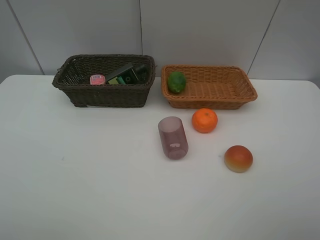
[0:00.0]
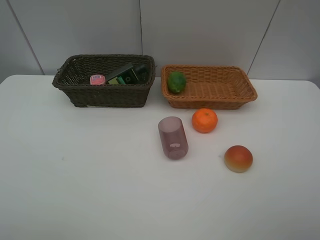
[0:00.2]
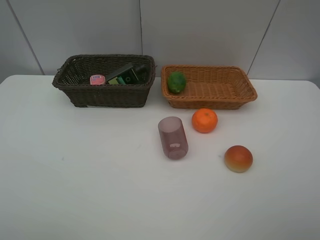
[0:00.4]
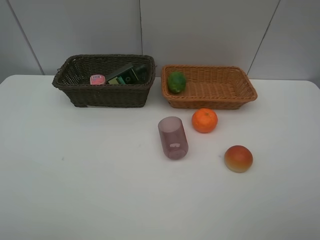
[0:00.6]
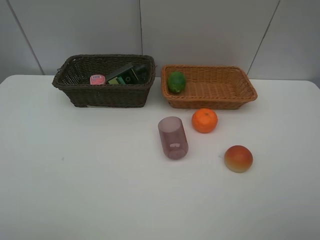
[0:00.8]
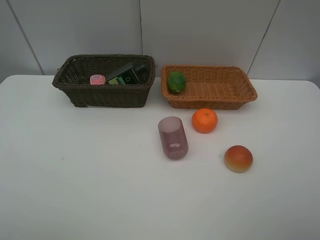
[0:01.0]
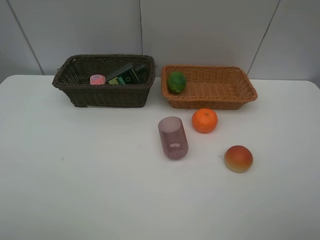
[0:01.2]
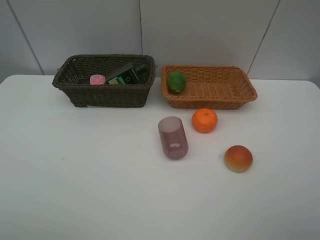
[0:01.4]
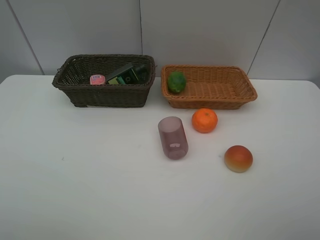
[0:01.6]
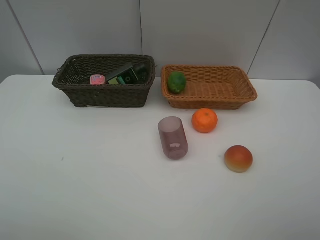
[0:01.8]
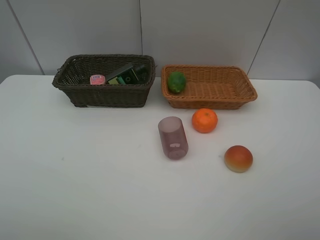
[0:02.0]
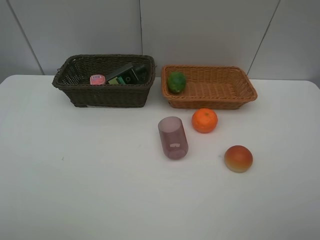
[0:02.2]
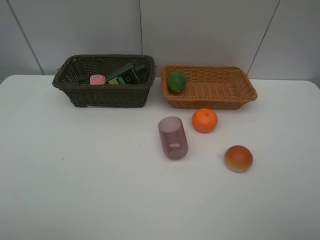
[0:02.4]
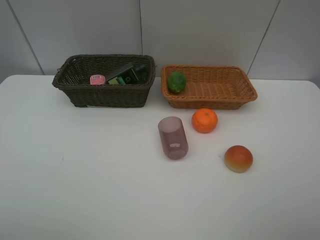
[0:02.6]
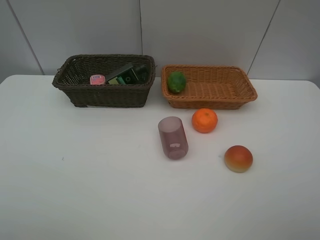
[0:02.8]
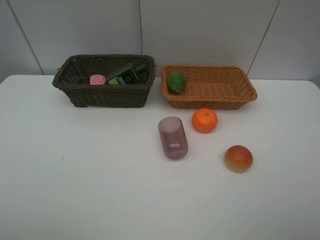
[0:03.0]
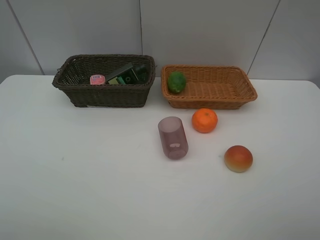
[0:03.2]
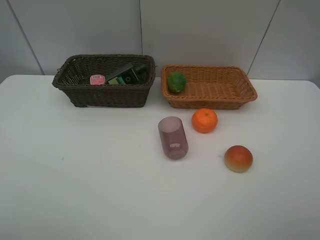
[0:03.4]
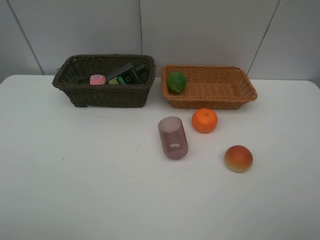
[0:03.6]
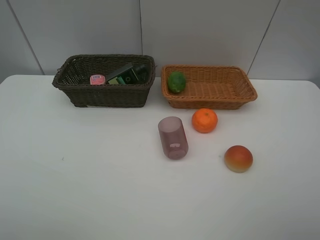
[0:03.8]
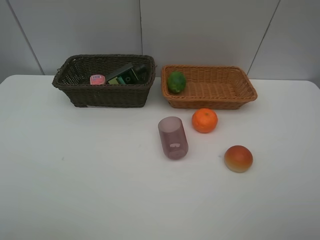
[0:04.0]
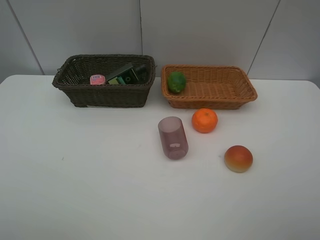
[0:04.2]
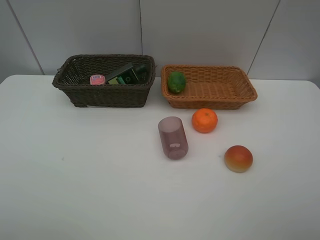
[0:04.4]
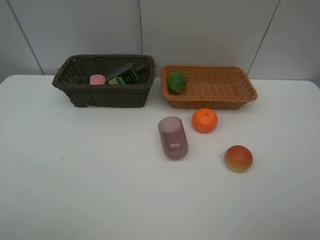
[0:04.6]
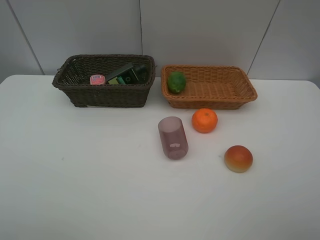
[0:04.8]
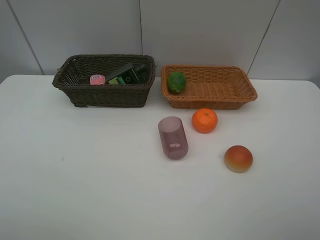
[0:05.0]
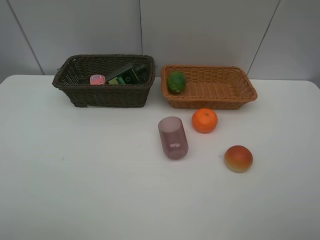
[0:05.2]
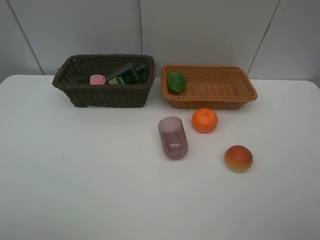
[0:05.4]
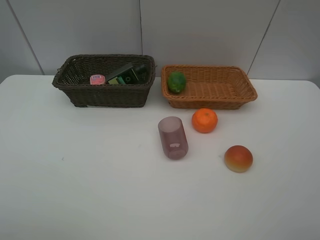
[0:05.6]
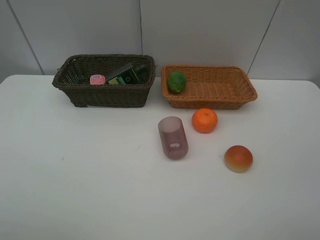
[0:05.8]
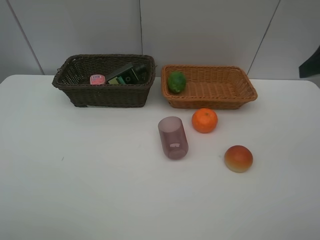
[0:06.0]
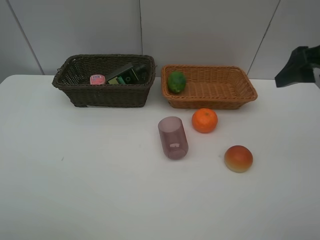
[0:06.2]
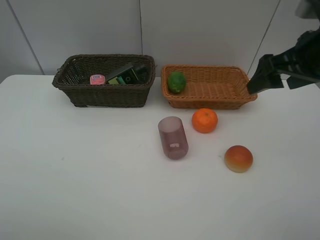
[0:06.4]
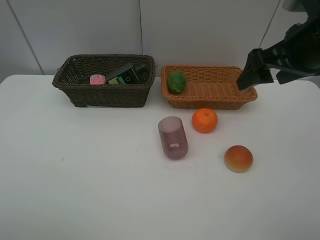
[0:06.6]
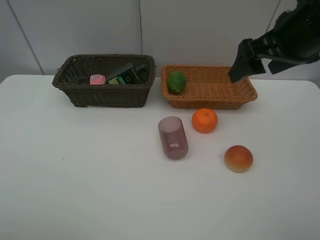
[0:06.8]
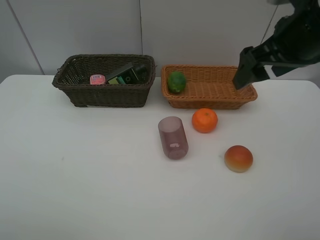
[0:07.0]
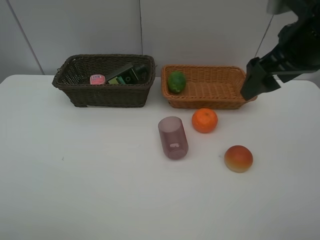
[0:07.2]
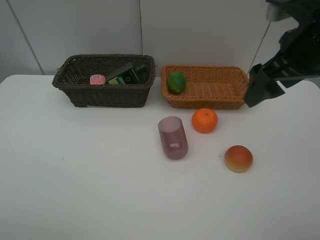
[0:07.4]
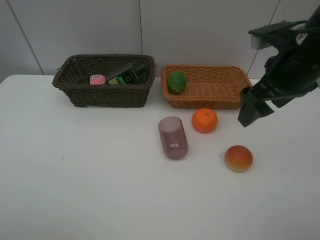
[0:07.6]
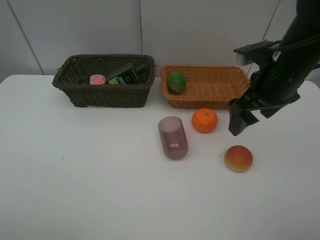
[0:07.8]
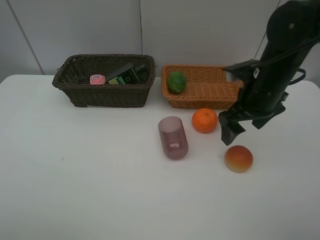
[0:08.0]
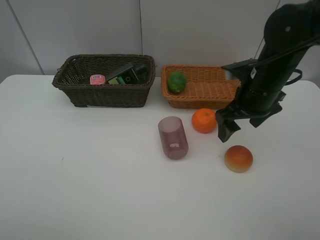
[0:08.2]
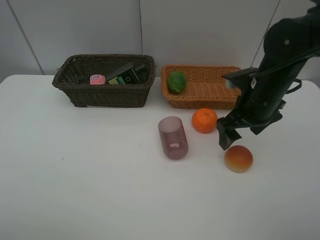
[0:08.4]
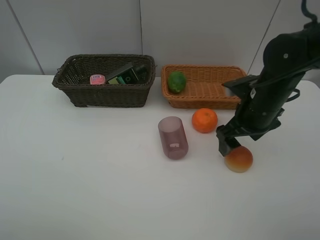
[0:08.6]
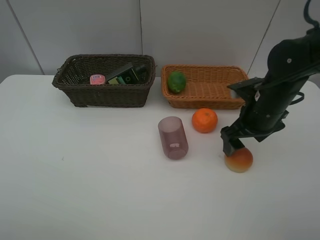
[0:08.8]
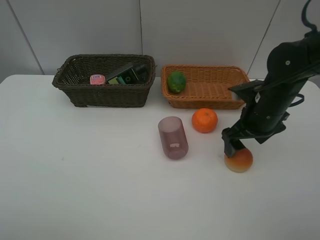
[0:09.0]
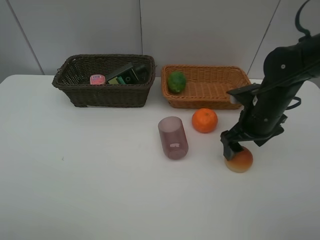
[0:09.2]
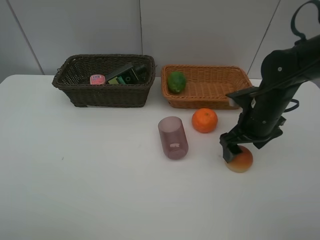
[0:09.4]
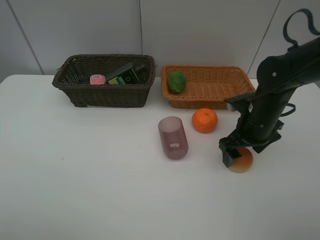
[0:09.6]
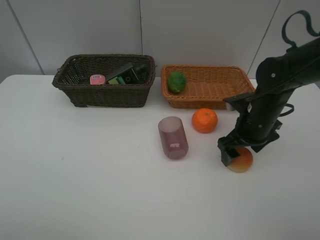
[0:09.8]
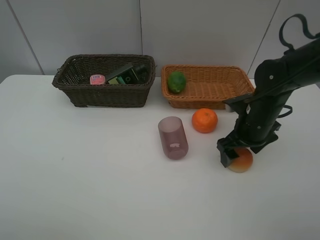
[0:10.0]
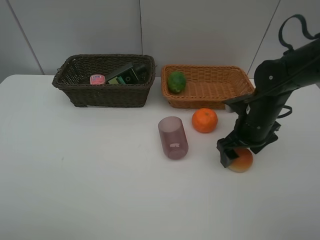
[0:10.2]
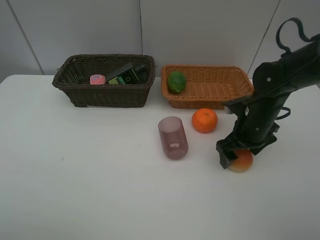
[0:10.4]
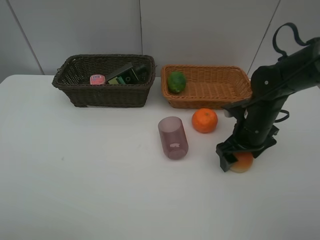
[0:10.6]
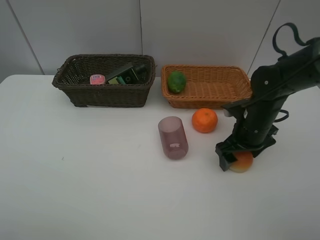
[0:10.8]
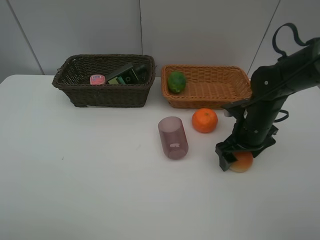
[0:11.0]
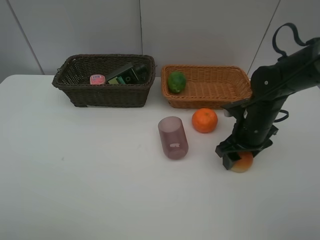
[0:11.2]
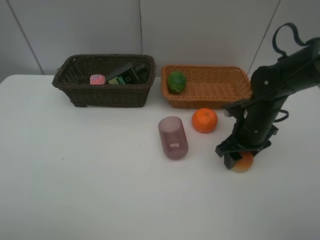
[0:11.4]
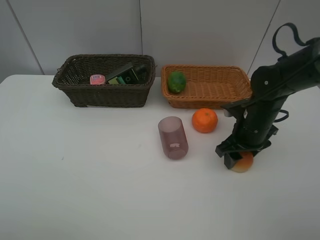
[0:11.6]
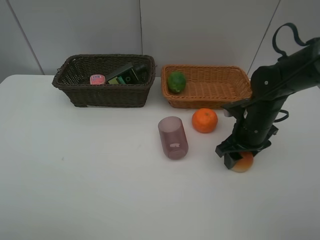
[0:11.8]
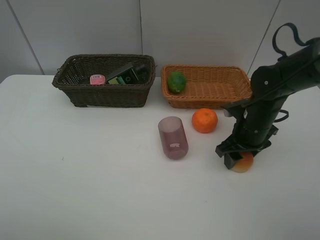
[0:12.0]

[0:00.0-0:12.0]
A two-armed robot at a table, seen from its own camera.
Task of the whole recording: place multiple objects separately in different baskets.
0:01.6 to 0:04.4: Neither gripper changes place.
0:06.0 to 0:07.6: The right gripper heads to the left and downward, covering about 10 cm.
0:07.6 to 0:09.0: The right gripper heads downward, covering roughly 10 cm.
0:09.0 to 0:10.4: The grippers make only small movements.
0:10.4 to 0:12.0: The right gripper closes.

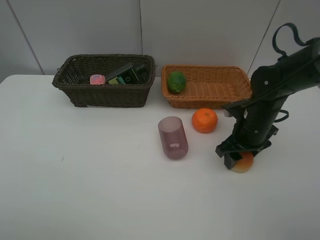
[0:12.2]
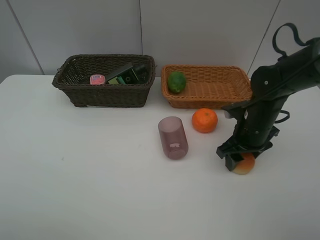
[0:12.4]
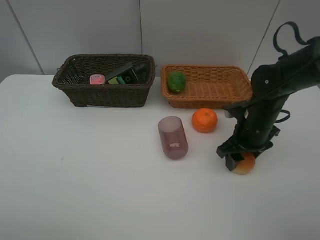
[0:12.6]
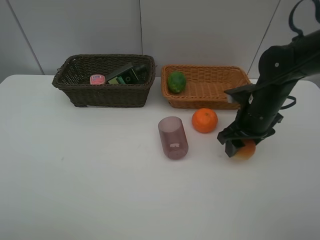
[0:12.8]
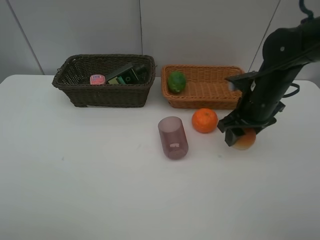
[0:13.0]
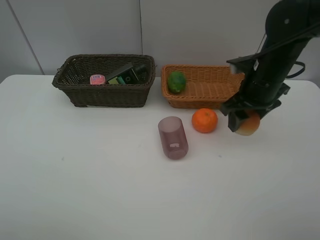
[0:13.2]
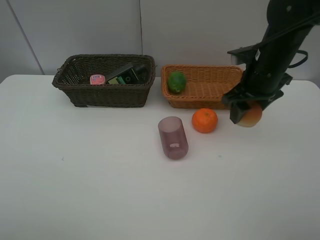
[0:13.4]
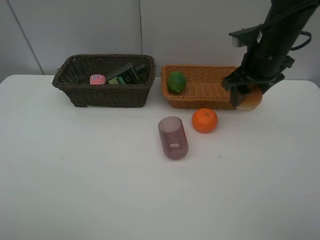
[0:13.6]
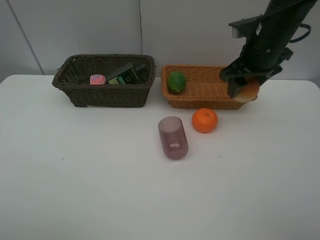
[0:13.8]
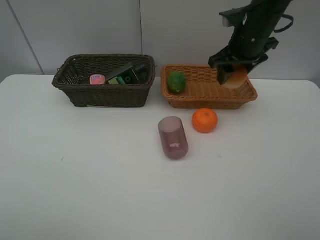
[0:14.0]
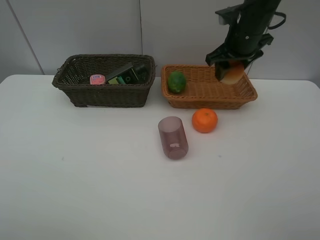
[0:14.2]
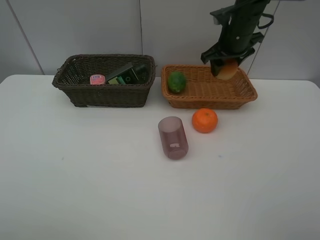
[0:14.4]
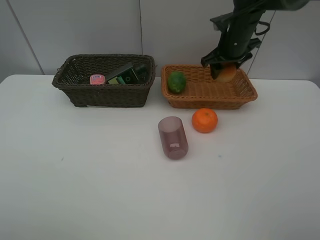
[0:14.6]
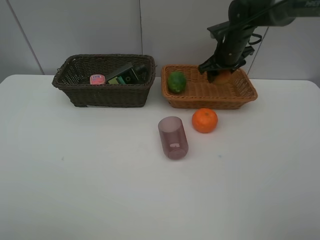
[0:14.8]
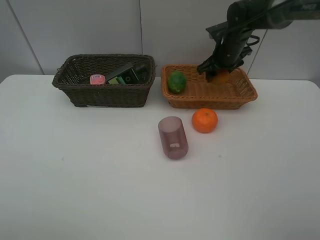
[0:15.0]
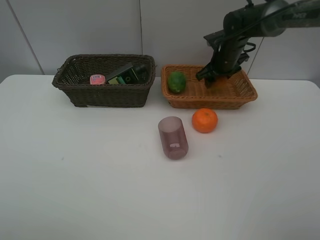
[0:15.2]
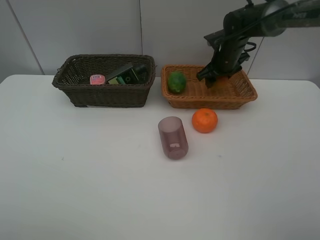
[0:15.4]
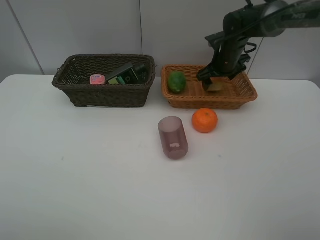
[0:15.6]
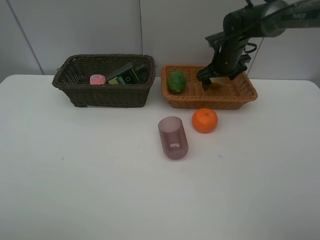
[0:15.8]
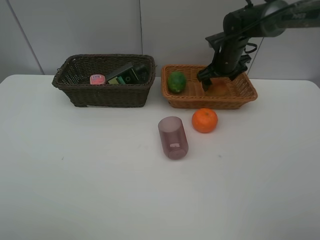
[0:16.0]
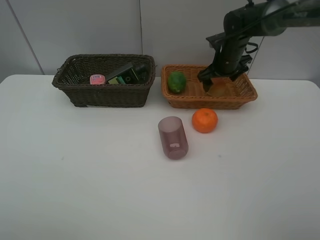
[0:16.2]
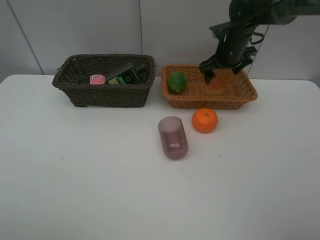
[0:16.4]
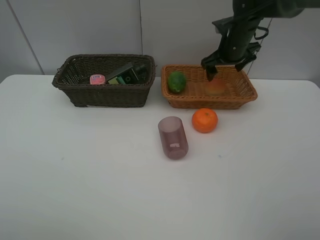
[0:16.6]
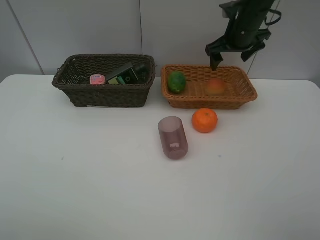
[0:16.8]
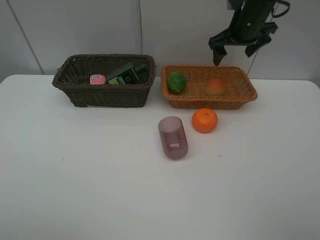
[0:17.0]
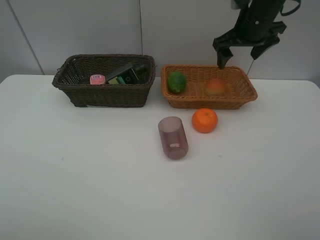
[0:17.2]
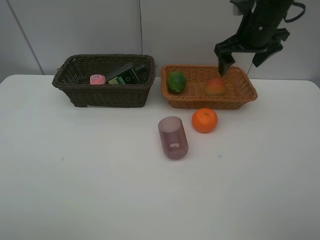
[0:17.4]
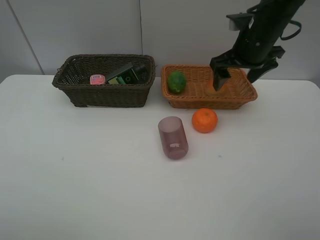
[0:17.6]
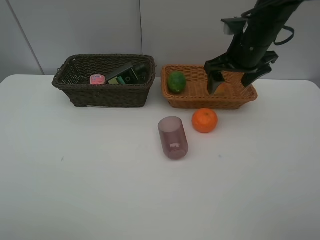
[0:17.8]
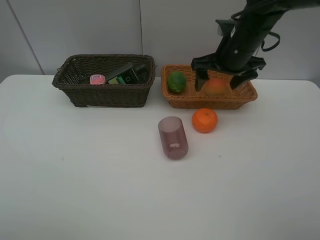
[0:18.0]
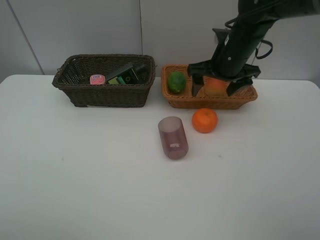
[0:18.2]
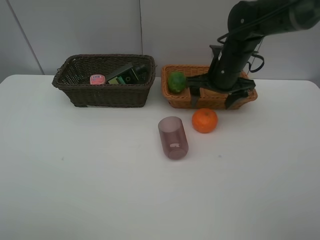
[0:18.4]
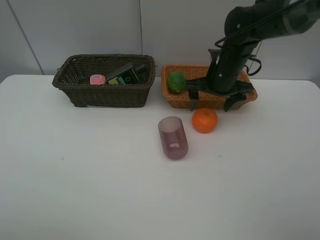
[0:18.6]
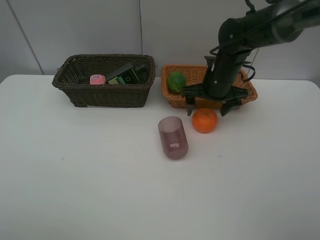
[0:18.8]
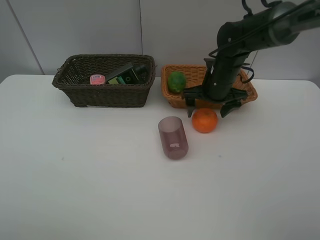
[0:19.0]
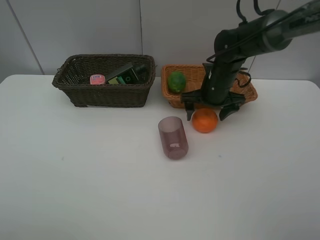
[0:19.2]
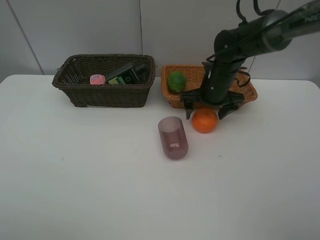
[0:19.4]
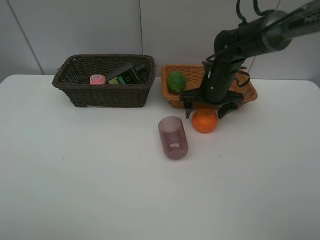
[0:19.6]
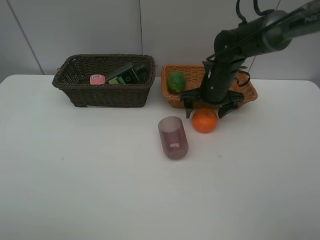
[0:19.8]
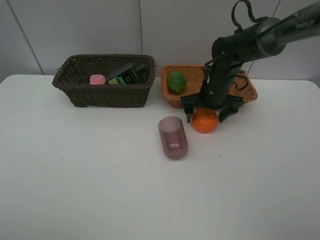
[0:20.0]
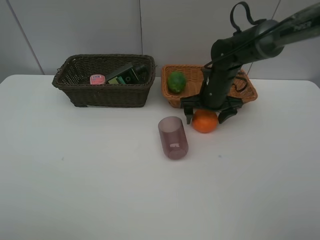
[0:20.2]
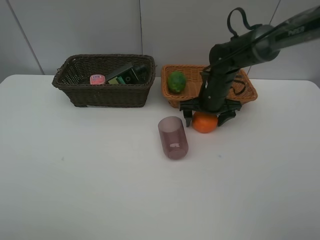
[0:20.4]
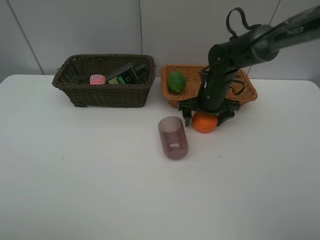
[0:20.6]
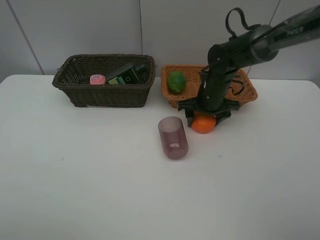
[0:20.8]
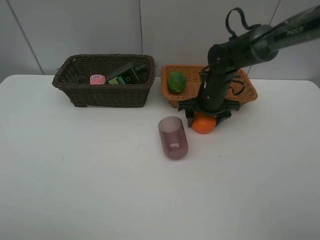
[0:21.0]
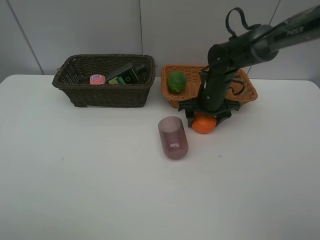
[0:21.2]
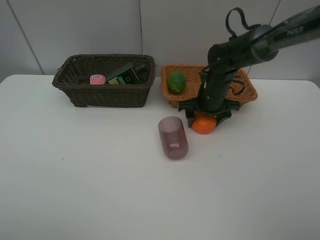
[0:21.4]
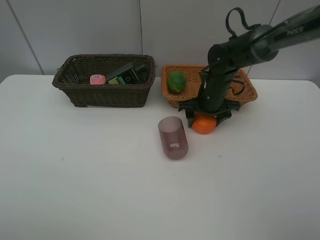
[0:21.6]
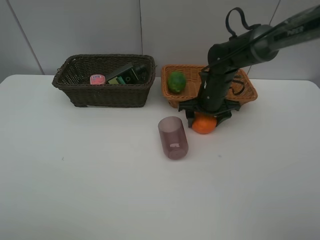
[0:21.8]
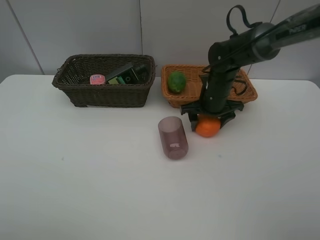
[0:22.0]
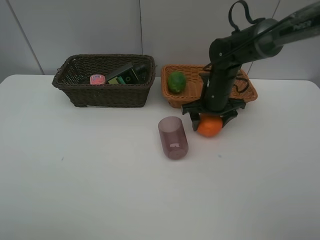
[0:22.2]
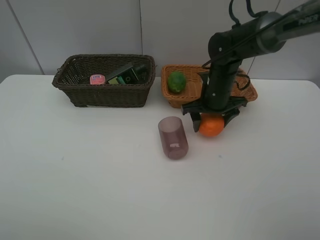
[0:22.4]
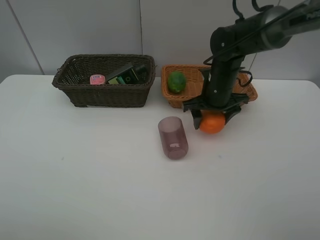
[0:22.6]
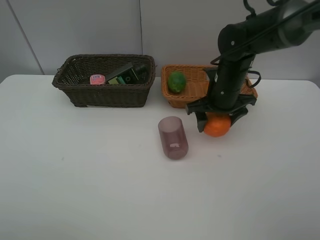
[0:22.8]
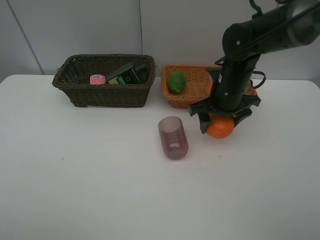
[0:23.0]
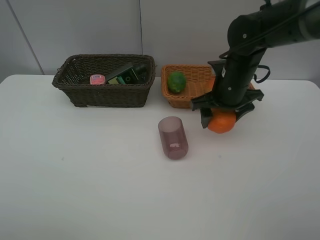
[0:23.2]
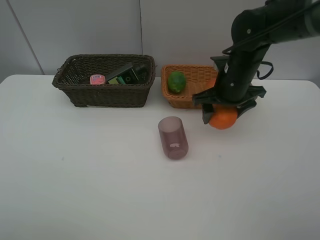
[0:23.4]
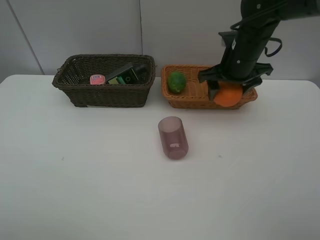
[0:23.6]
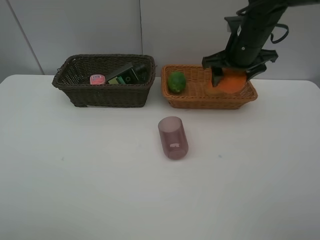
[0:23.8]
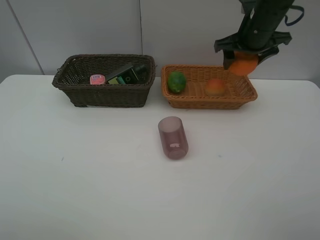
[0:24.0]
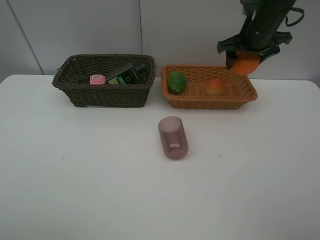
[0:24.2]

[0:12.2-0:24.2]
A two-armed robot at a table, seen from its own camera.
Task of the whole recording: place multiple objects separately in different baskets.
0:12.2 to 0:13.8: The right gripper heads upward and forward, covering some 15 cm.
0:13.8 to 0:15.2: The right gripper moves forward and downward, roughly 15 cm.
0:15.2 to 0:16.6: The right gripper changes place by approximately 5 cm, and opens up.
0:16.6 to 0:18.2: The right gripper heads backward, covering about 10 cm.
0:18.2 to 0:19.8: The right gripper shifts about 10 cm downward.
0:19.8 to 0:21.2: The right gripper closes its fingers.
0:21.2 to 0:22.6: There are only small adjustments of the grippers.
0:22.6 to 0:24.2: The right gripper is displaced upward, to the right and forward by roughly 15 cm.
